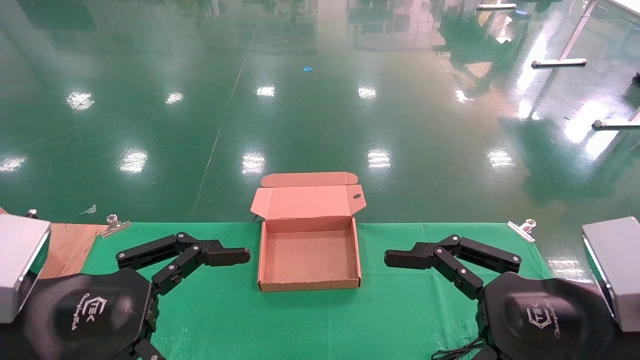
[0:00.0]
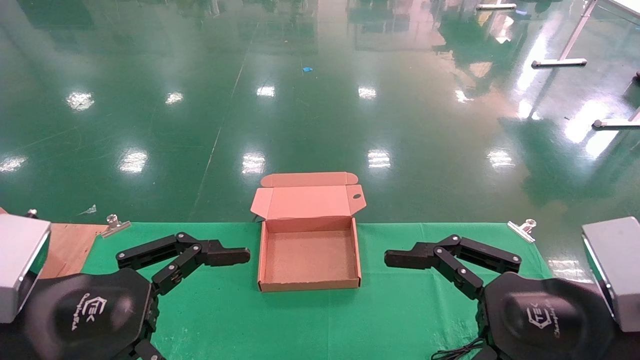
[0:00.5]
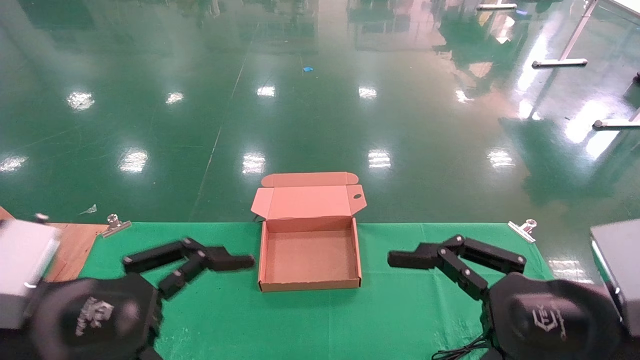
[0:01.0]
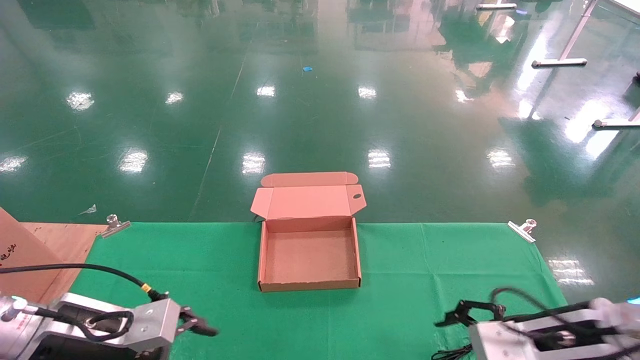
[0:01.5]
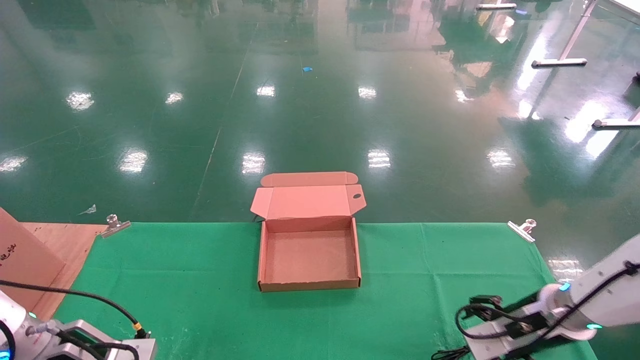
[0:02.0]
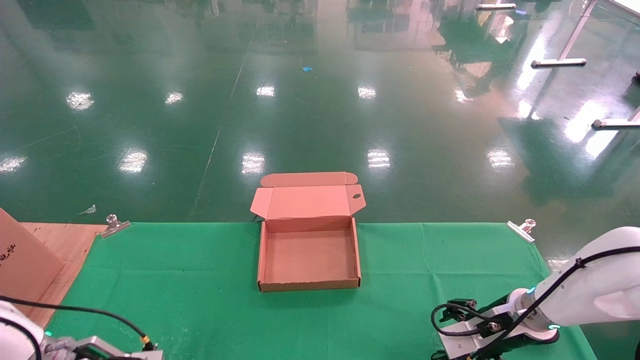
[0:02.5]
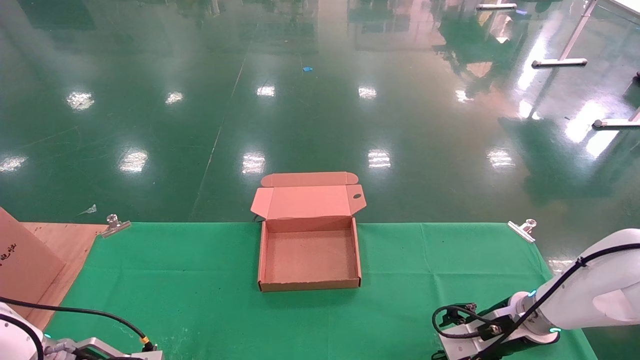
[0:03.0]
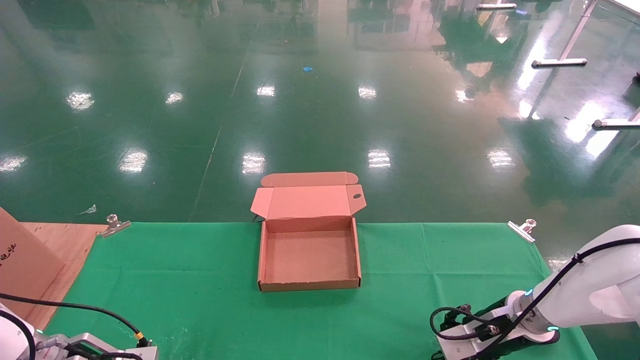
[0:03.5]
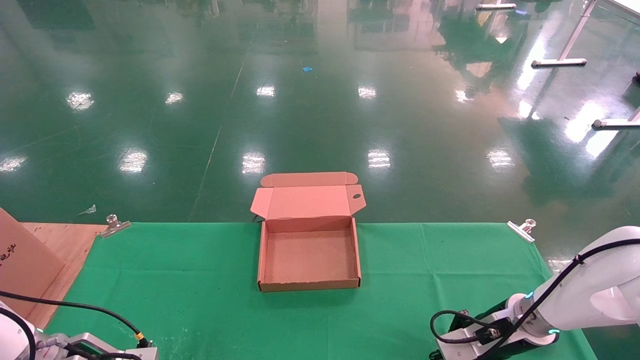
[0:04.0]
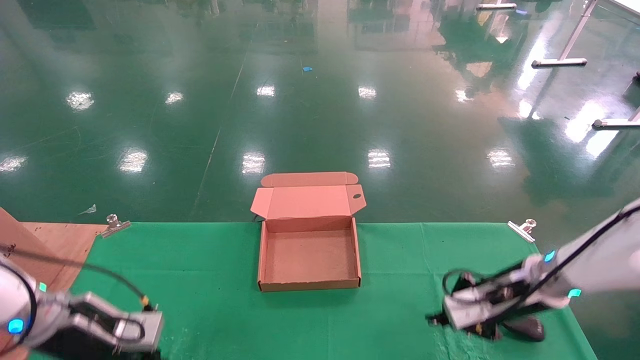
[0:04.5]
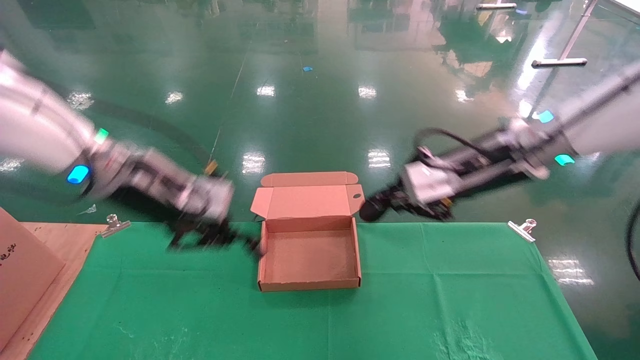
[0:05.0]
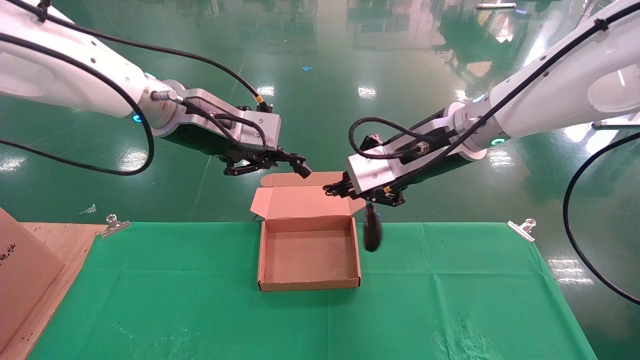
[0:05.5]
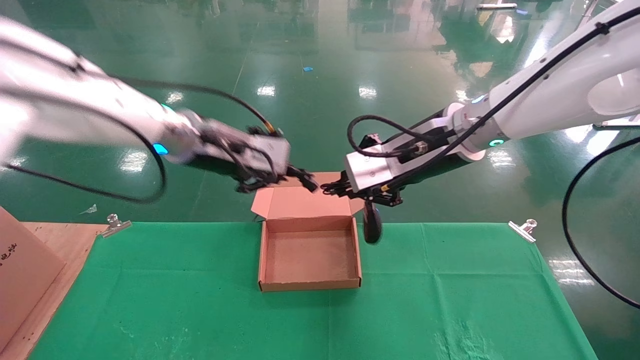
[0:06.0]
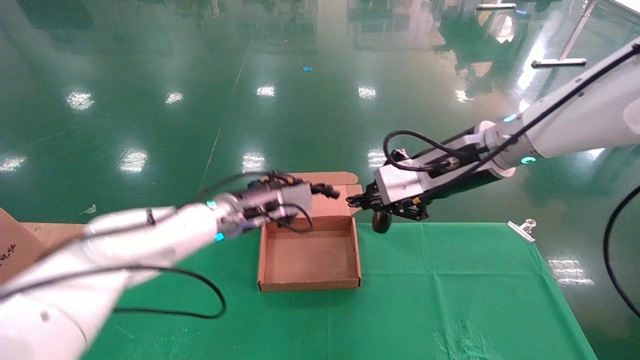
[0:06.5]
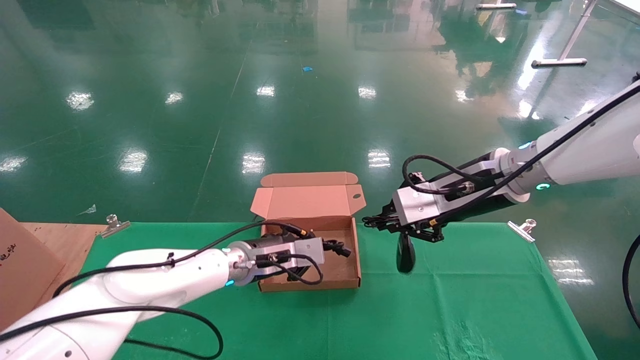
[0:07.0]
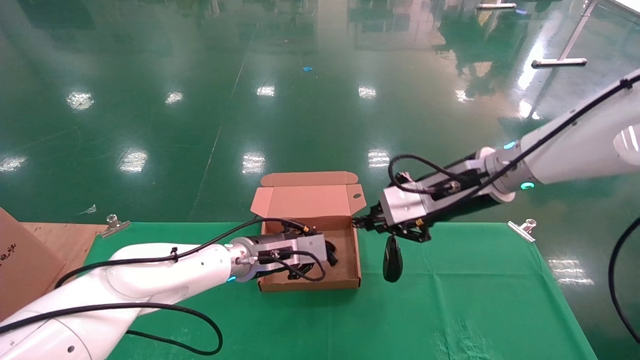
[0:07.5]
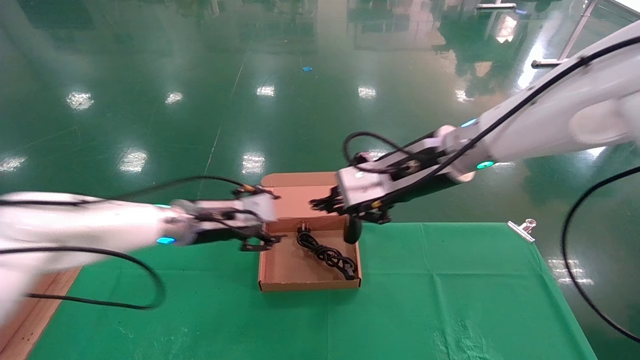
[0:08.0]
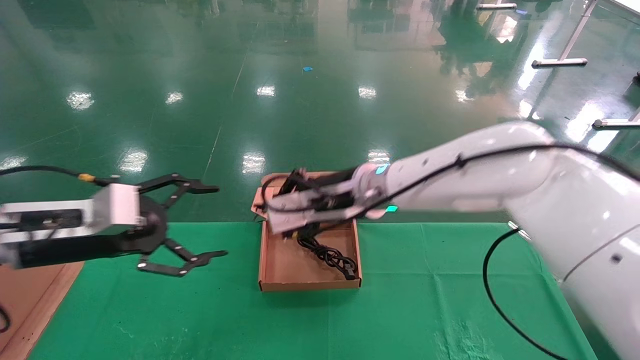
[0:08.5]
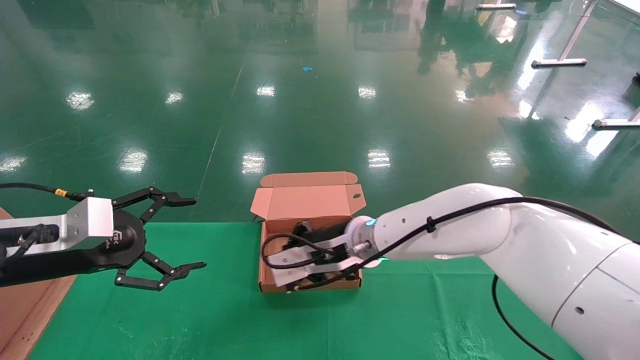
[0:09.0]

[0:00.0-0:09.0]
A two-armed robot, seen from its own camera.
Step, 0:01.0 to 0:05.0: Grab and lift both the mouse and power cord from the accessory packaging area at the same time.
0:00.0 to 0:02.0: The right gripper moves forward and downward, approximately 25 cm. Meanwhile the left gripper is displaced forward, downward and to the left by roughly 25 cm.
0:02.0 to 0:04.5: The left gripper changes place by roughly 5 cm, and closes up, while the right gripper changes place by some 5 cm, and closes up.
0:04.5 to 0:07.0: The left gripper goes approximately 25 cm to the right and forward, and moves about 25 cm upward and comes back, while the right gripper travels upward and to the left by approximately 15 cm.
0:07.0 to 0:09.0: The right gripper travels to the left and downward by roughly 20 cm. Meanwhile the left gripper shifts about 30 cm to the left and backward, and opens.

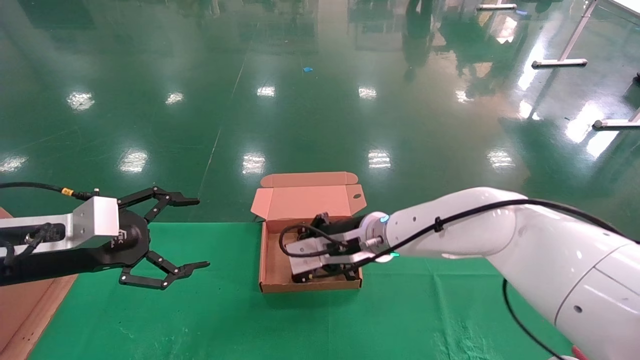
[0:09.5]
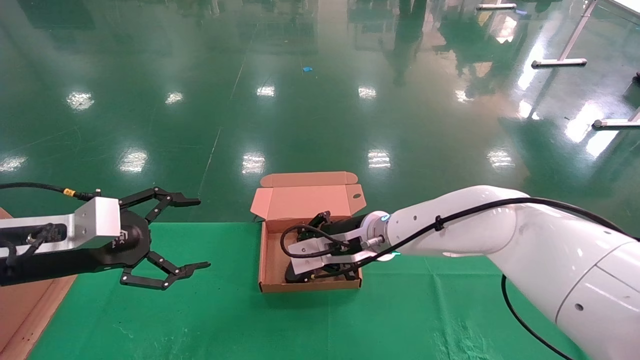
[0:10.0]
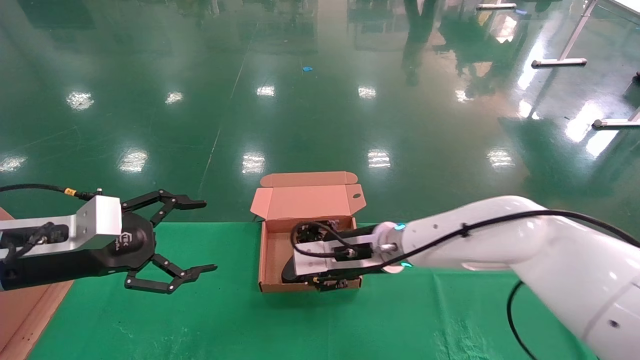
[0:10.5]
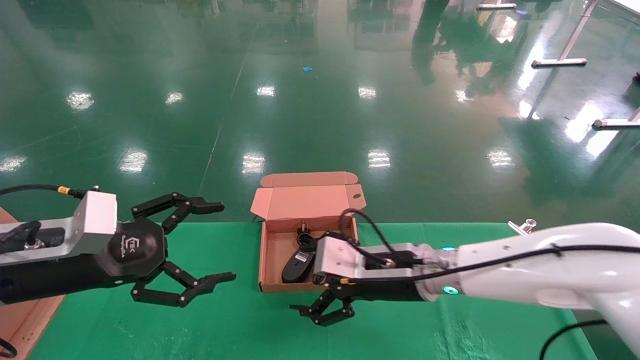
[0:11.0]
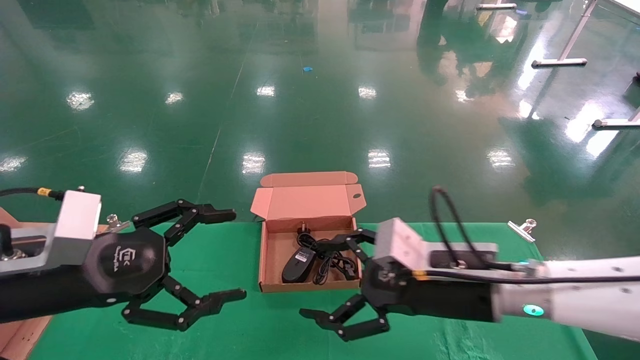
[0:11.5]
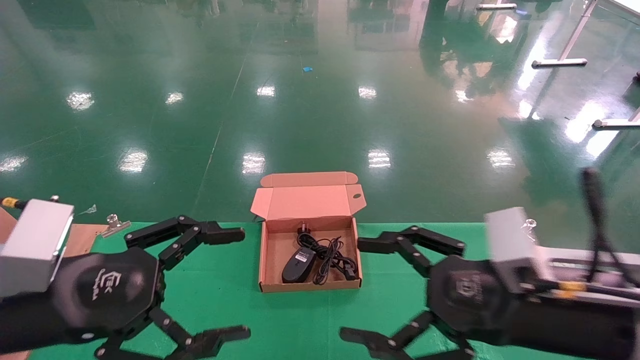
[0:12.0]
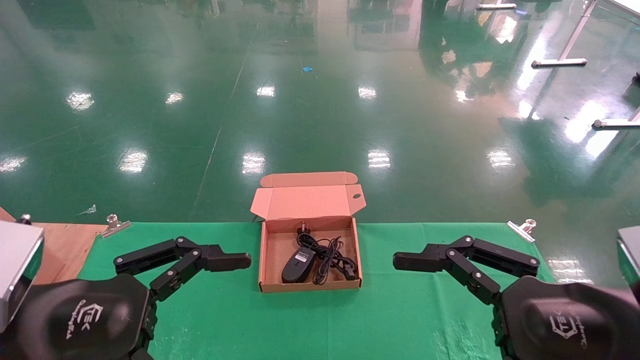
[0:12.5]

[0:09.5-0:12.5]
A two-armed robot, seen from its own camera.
0:09.5 to 0:11.0: The left gripper ends up approximately 5 cm from where it was. Meanwhile the right gripper is displaced backward and to the right by about 10 cm, and opens its fingers.
0:11.0 to 0:12.5: The right gripper goes some 25 cm backward and to the right. The left gripper travels backward by some 10 cm.
